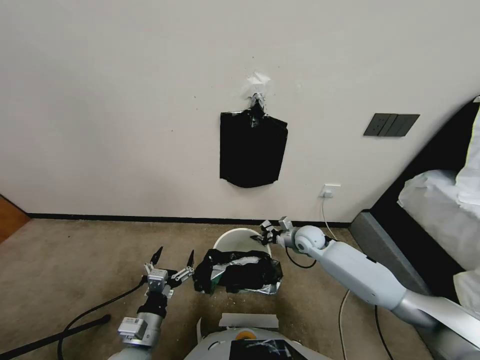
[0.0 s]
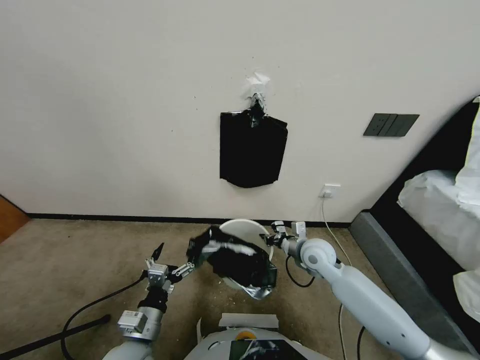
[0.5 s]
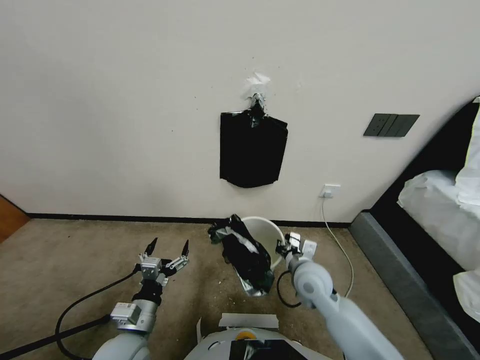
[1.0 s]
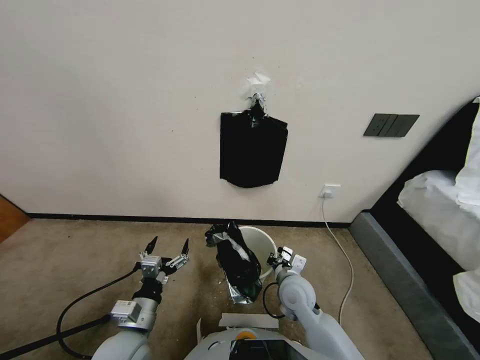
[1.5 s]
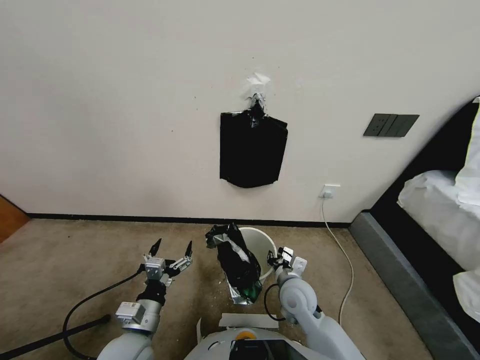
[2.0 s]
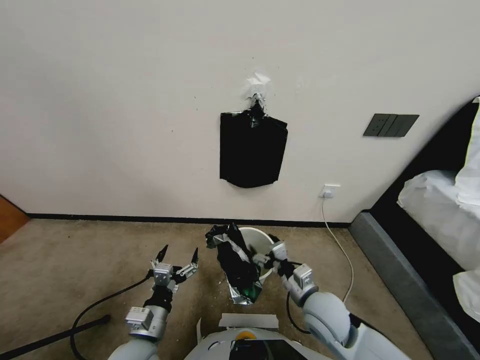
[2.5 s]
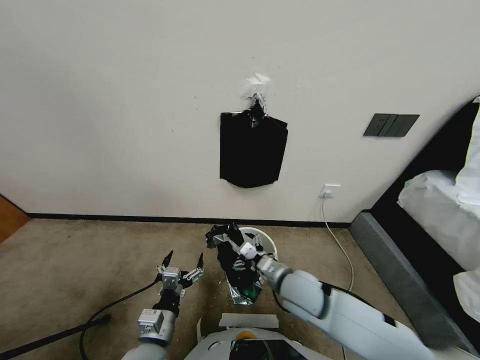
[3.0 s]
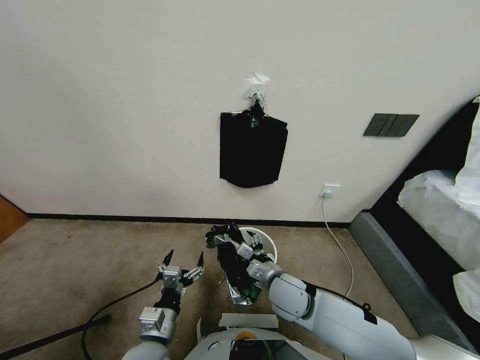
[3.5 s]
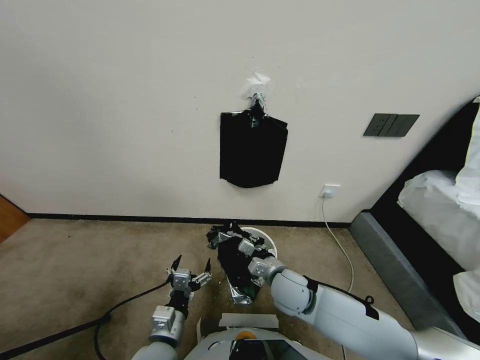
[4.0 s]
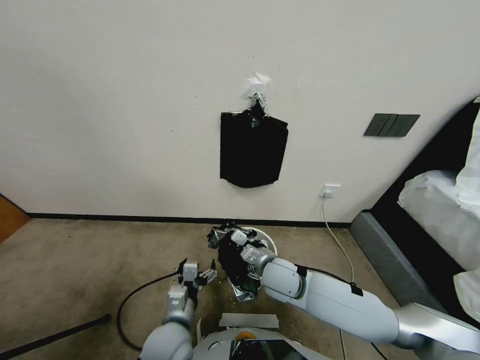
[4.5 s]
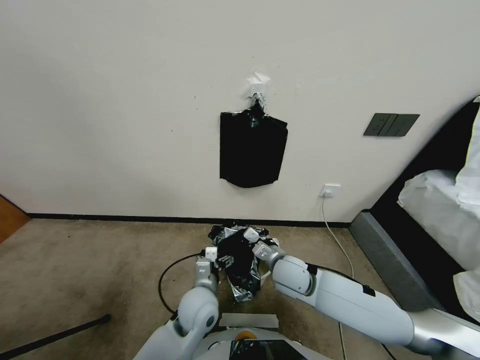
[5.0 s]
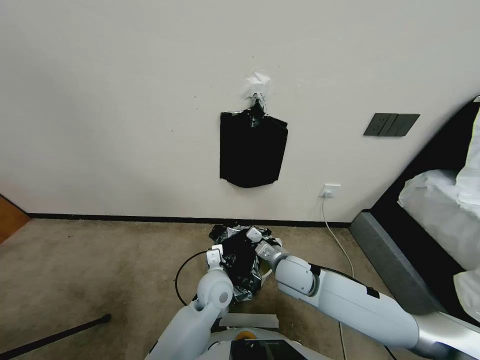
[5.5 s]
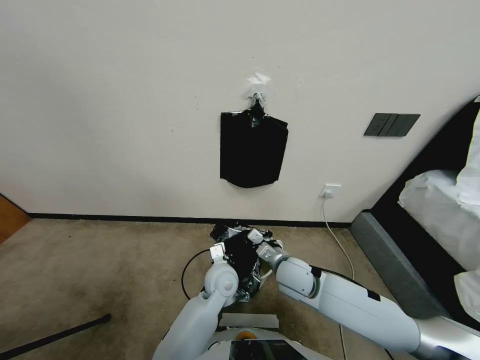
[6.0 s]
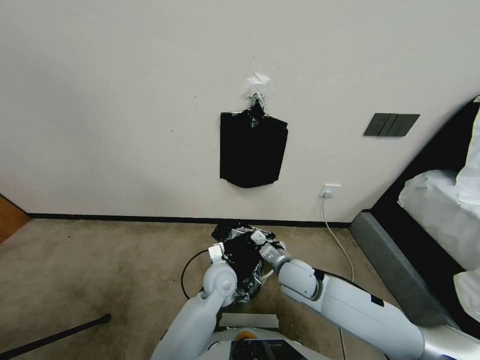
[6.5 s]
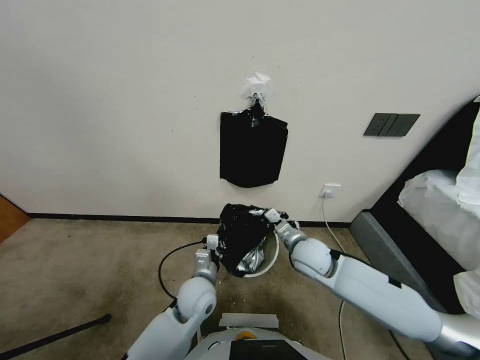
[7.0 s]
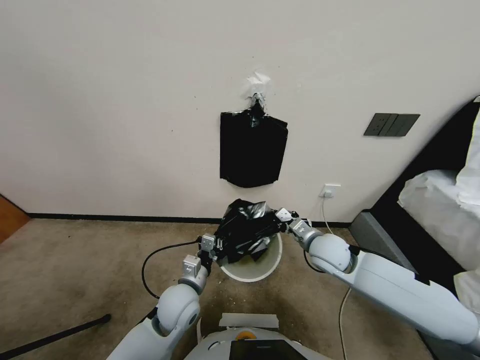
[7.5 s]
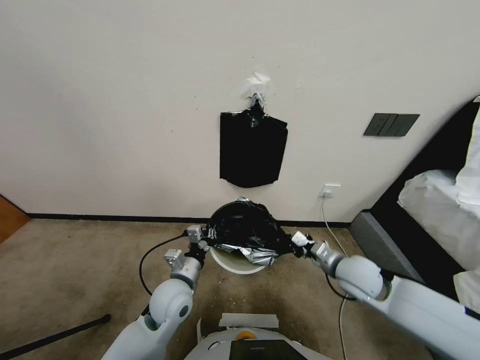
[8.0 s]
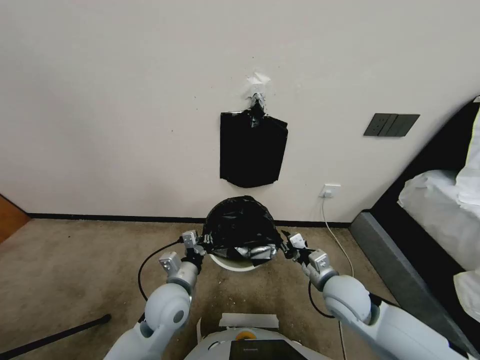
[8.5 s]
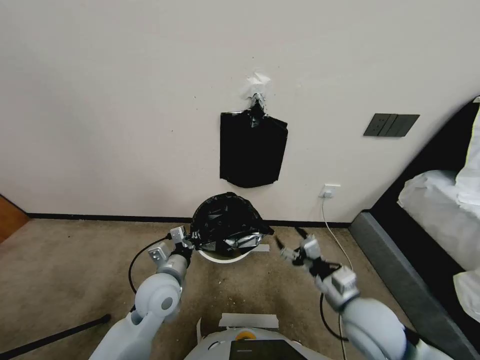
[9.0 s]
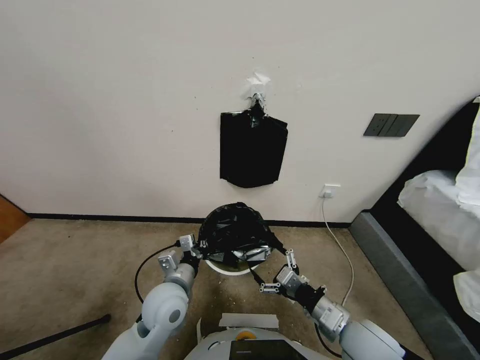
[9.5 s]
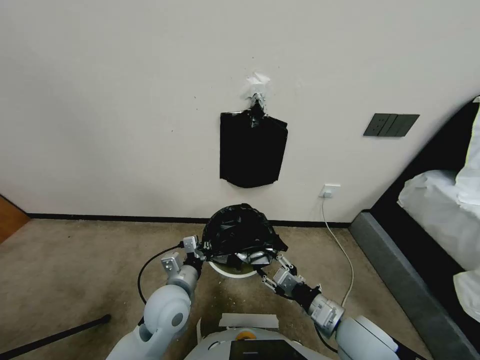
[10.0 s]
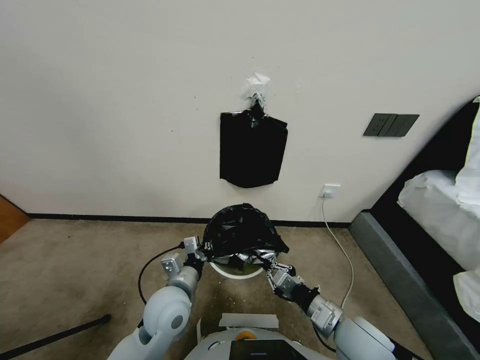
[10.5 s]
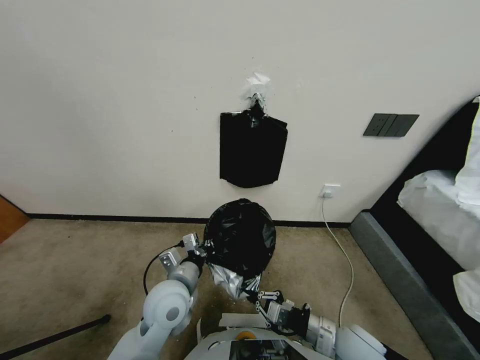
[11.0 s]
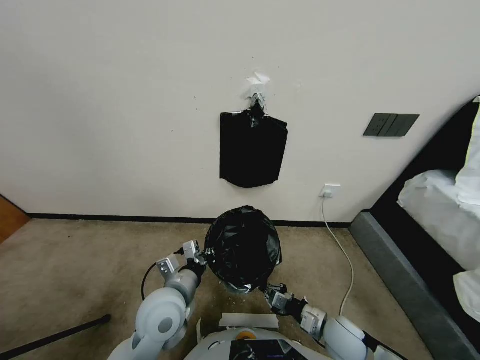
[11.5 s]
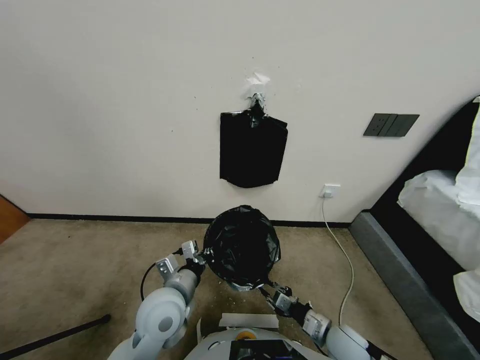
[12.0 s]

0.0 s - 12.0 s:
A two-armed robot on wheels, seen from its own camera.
Task of the whole recording: Place a trash bag onto the trash bin.
0.0 s - 2.0 s: The right gripper is displaced backward and to the left by roughly 20 cm, and opens its fingers.
2.0 s - 4.0 s: The left gripper travels to the right by approximately 5 cm; the right gripper moves some 5 cm, and closes its fingers.
4.0 s - 6.0 s: The left gripper is displaced forward and to the right by roughly 20 cm, and closes its fingers.
6.0 s - 8.0 s: The left gripper shifts about 15 cm to the left and backward, while the right gripper heads to the right, covering roughly 15 cm.
8.0 s - 10.0 s: The right gripper is displaced backward by roughly 10 cm, and opens its fingers.
10.0 s - 12.0 s: The right gripper is displaced downward by some 10 cm, and closes and opens again.

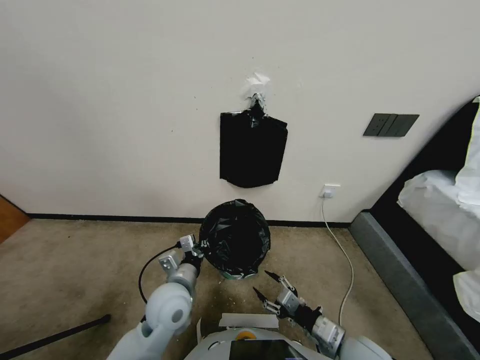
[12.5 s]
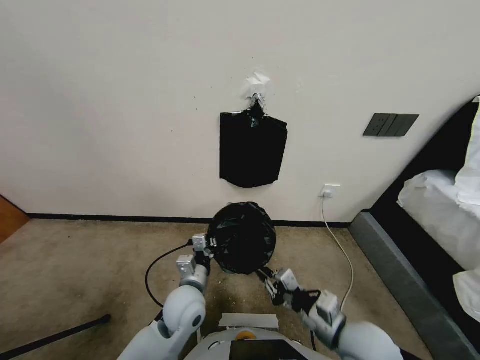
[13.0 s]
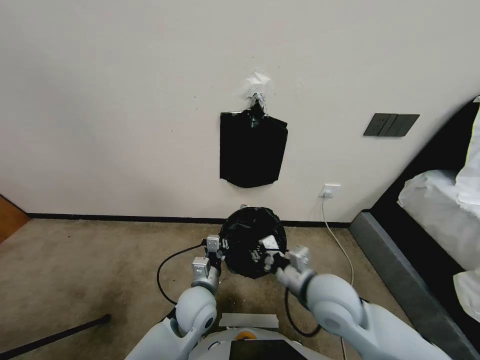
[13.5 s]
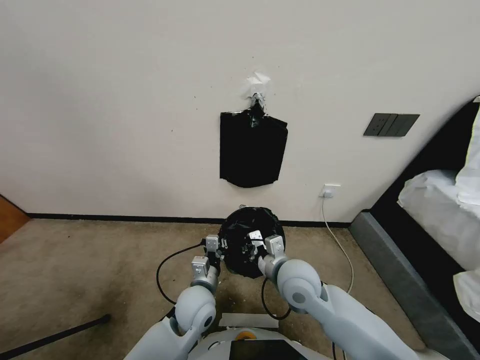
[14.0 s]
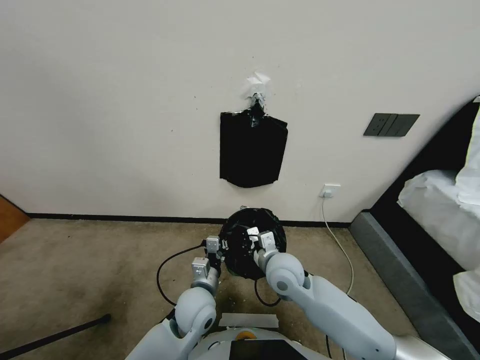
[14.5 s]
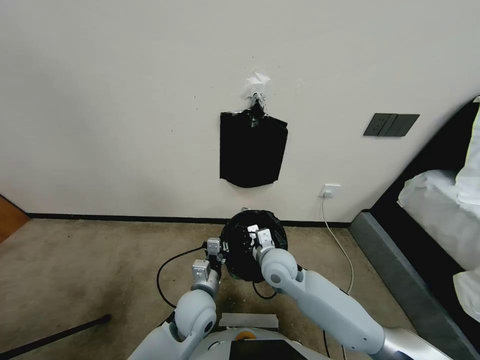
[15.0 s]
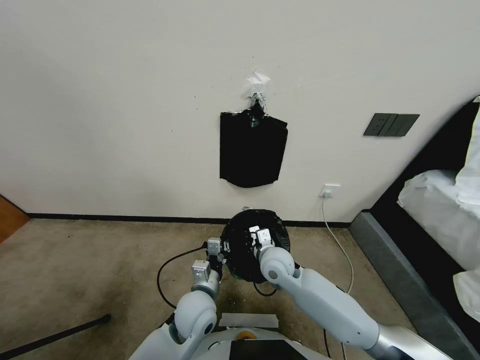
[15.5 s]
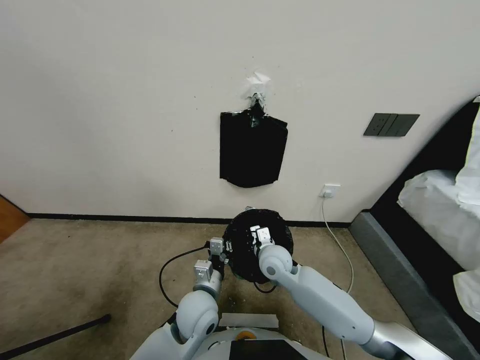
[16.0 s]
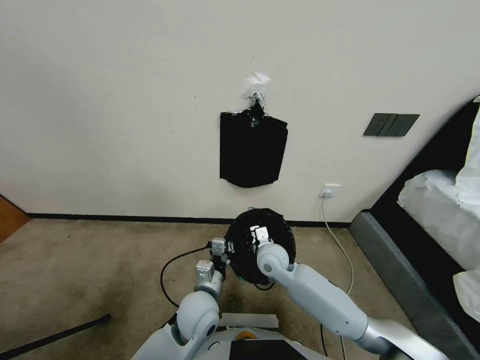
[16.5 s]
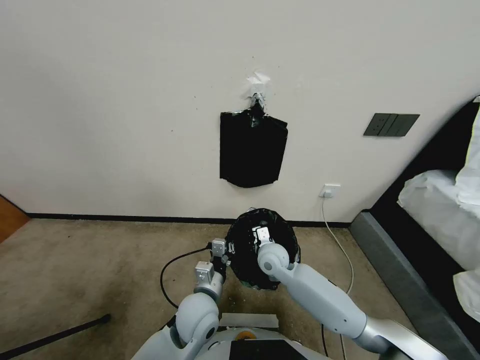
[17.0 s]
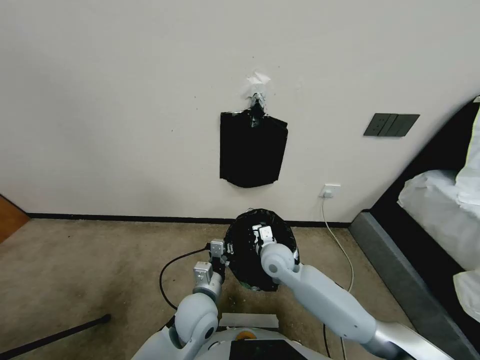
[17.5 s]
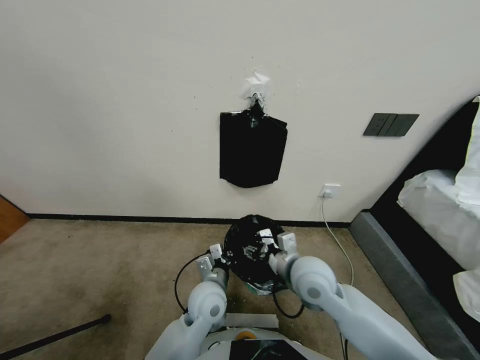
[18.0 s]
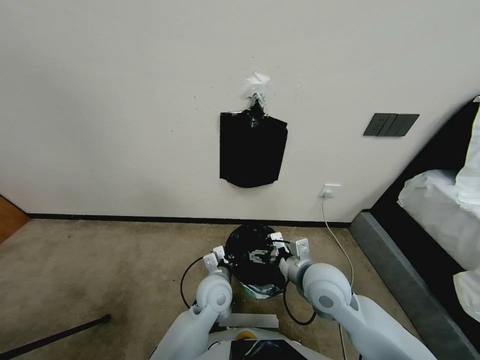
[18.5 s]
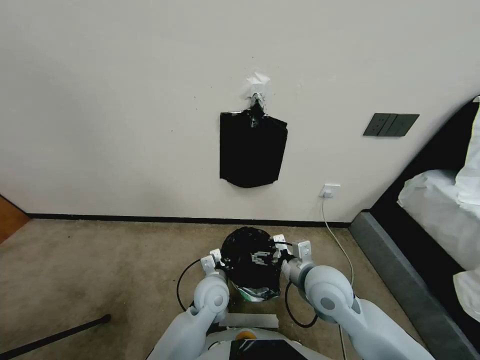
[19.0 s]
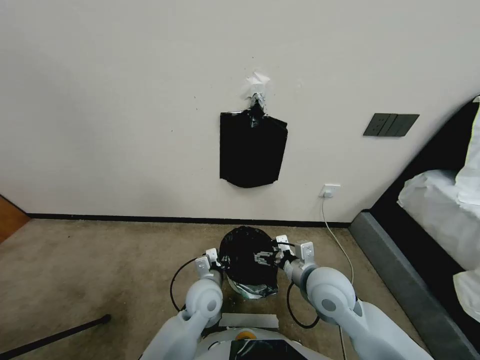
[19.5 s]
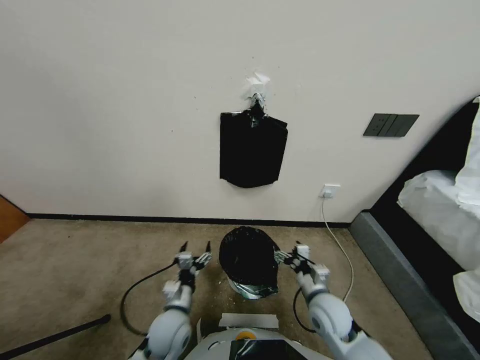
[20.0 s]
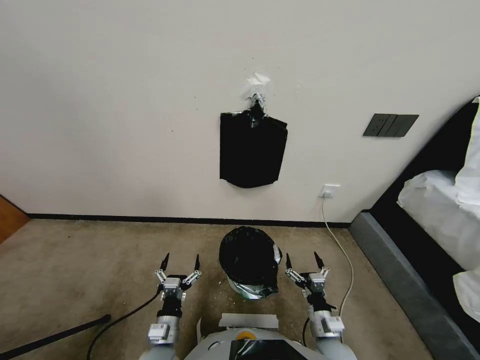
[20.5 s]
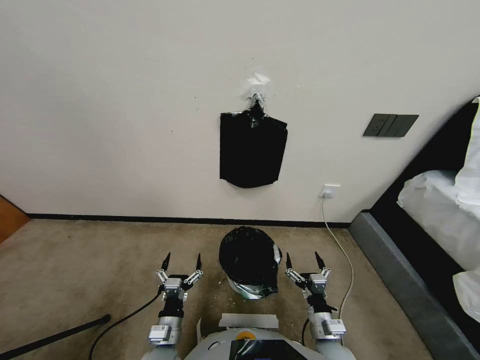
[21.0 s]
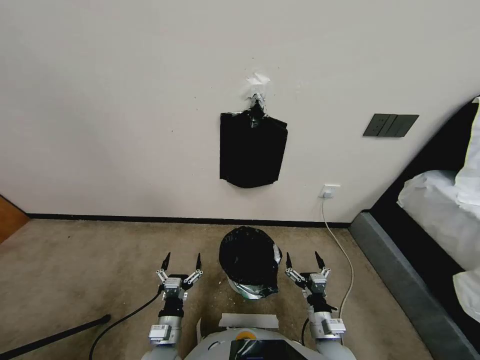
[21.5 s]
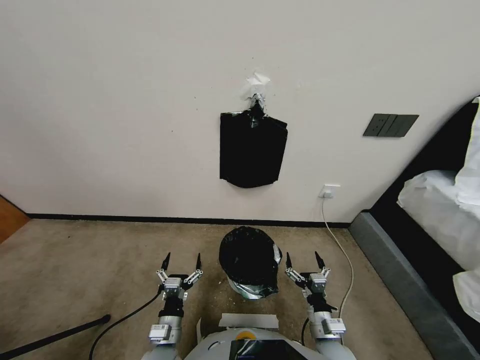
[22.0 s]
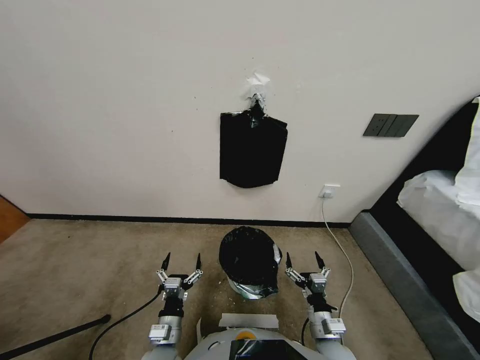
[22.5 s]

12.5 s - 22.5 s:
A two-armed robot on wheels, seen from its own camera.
Task of the whole recording: Place a trash bag onto the trash bin.
12.5 s - 14.5 s: The left gripper shifts by approximately 5 cm. The right gripper heads forward and to the left, covering some 20 cm, and closes up.
14.5 s - 16.5 s: The right gripper heads forward, covering roughly 5 cm.
16.5 s - 18.5 s: The left gripper changes place by some 5 cm; the right gripper travels backward, upward and to the right by some 15 cm, and opens up.
18.5 s - 20.5 s: The right gripper is displaced downward and backward by approximately 20 cm. The left gripper travels backward, to the left and downward by some 20 cm, and opens.
20.5 s - 22.5 s: Both grippers stay about where they are.

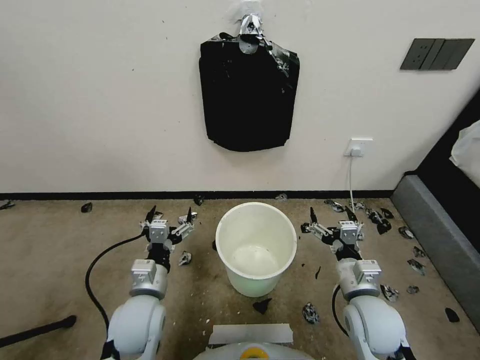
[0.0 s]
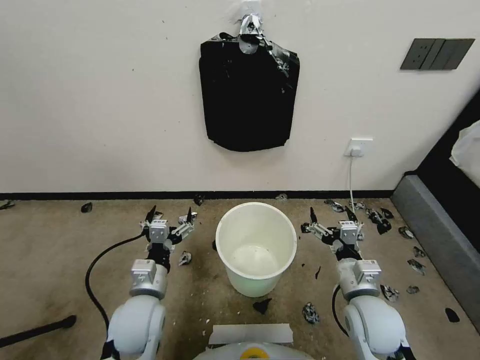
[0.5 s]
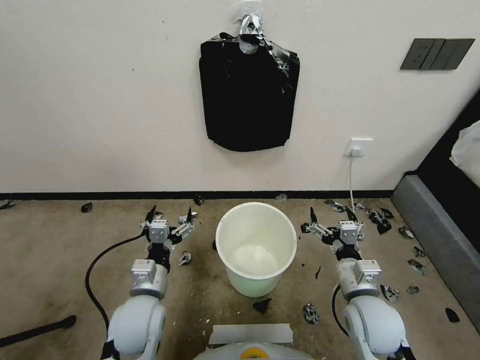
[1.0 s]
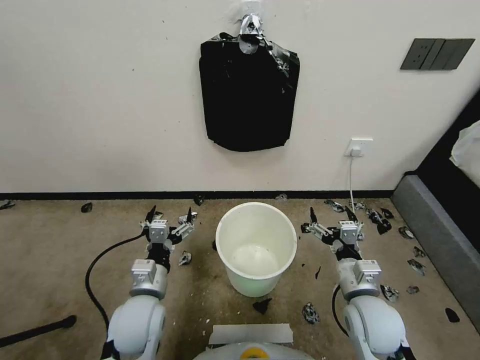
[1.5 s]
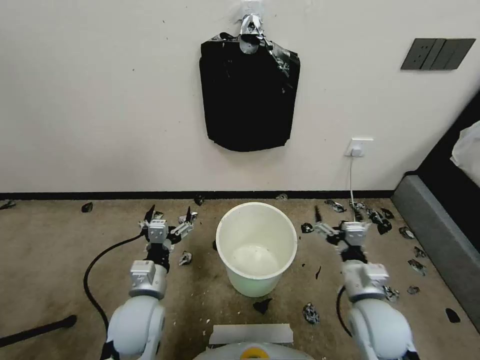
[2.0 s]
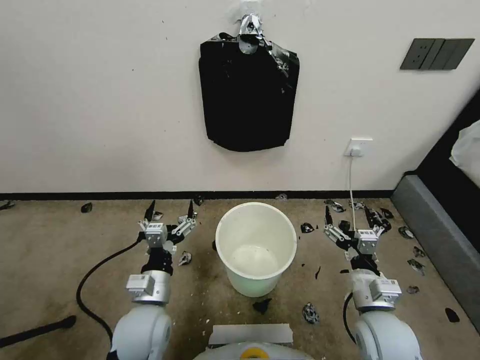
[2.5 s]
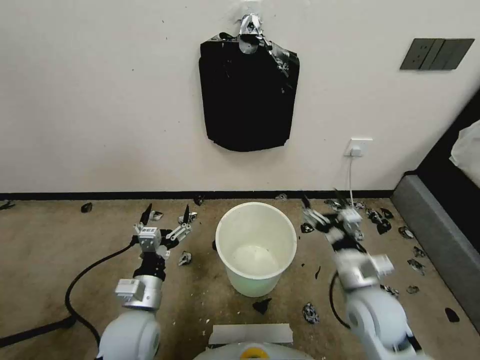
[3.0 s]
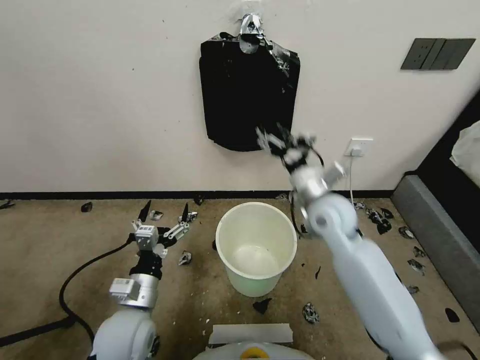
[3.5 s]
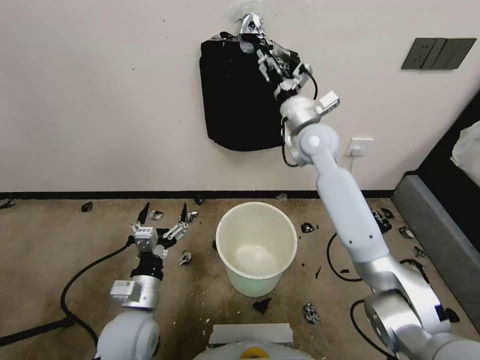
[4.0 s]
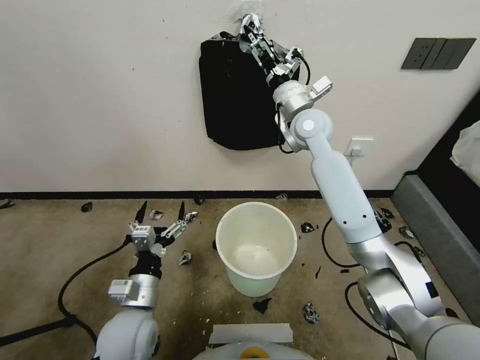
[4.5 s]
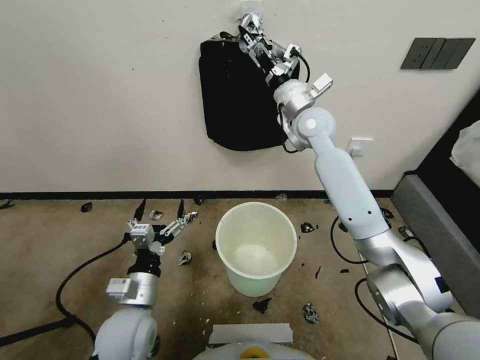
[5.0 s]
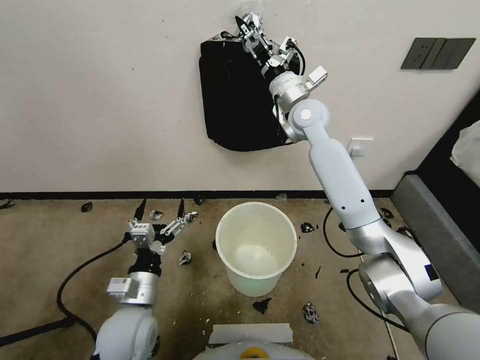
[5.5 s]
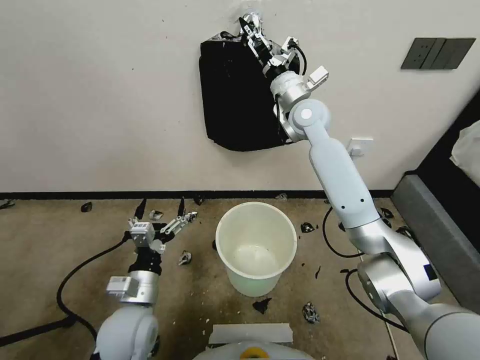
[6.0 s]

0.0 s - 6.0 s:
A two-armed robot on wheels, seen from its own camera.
Task of the whole recording: Place a trash bag onto the trash bin.
2.0 s - 4.0 s: The right gripper goes some 35 cm forward and upward.
4.0 s - 6.0 s: The right gripper ends up about 5 cm from where it was, and closes its fingers.
